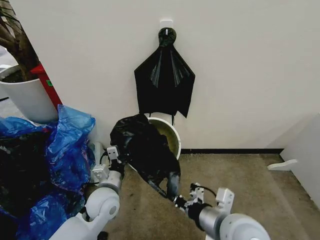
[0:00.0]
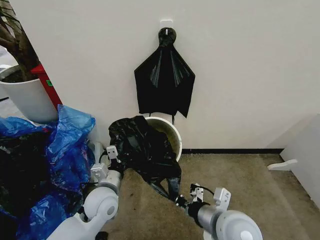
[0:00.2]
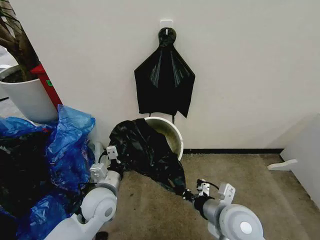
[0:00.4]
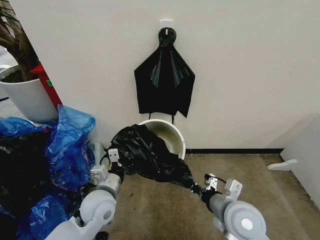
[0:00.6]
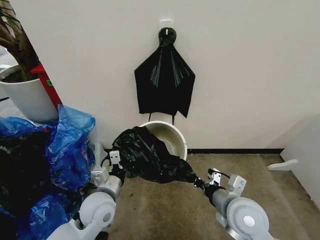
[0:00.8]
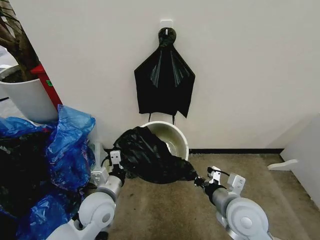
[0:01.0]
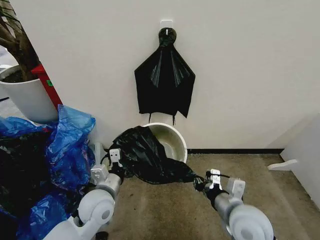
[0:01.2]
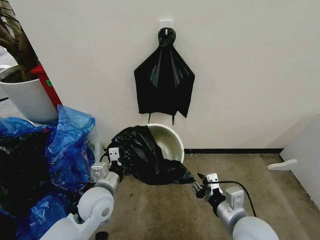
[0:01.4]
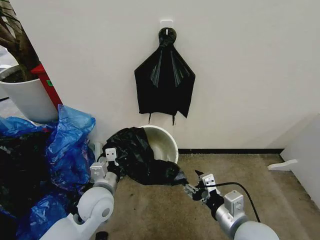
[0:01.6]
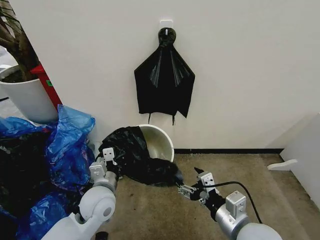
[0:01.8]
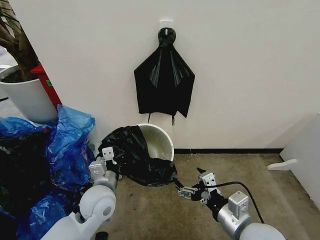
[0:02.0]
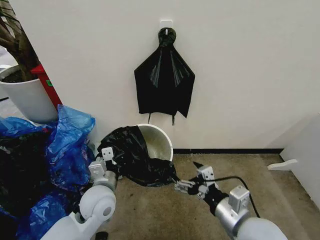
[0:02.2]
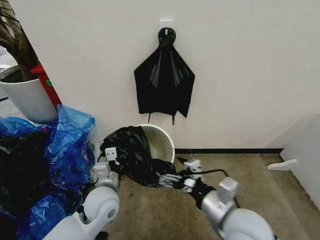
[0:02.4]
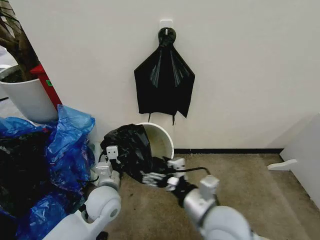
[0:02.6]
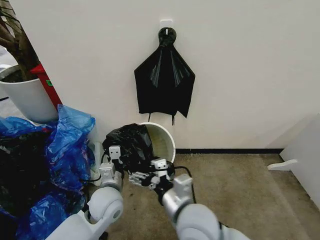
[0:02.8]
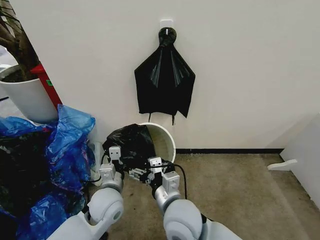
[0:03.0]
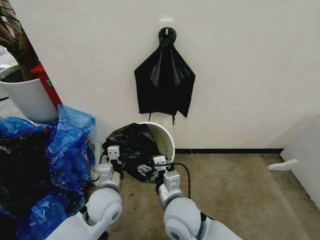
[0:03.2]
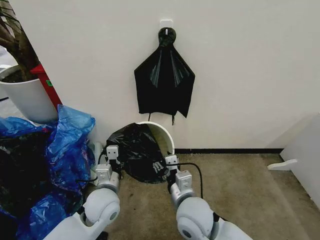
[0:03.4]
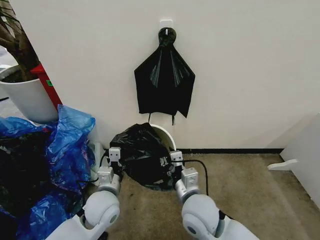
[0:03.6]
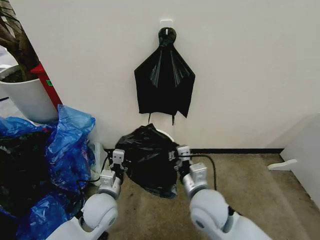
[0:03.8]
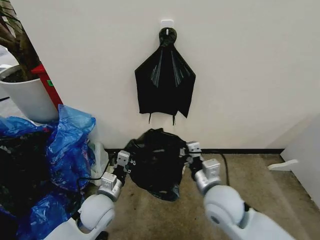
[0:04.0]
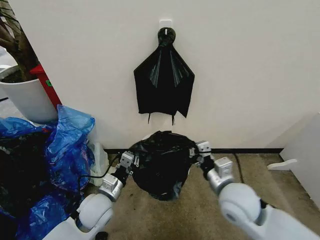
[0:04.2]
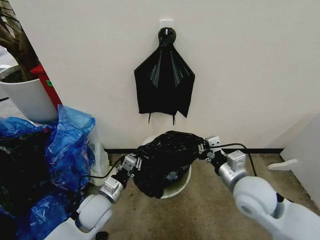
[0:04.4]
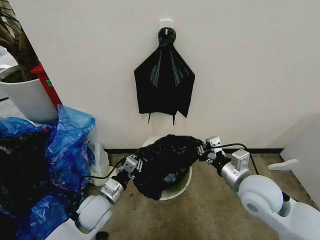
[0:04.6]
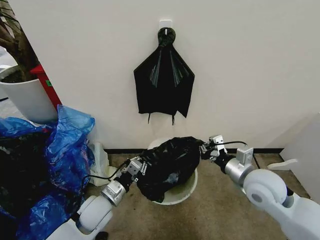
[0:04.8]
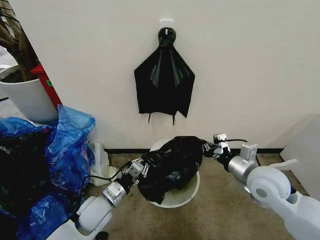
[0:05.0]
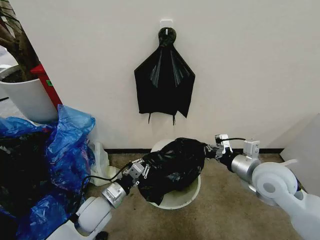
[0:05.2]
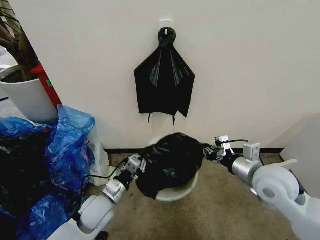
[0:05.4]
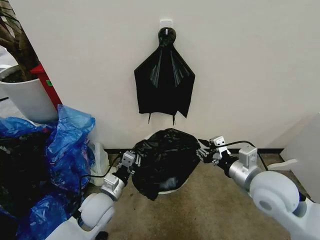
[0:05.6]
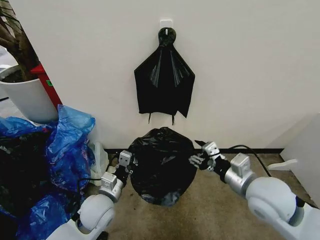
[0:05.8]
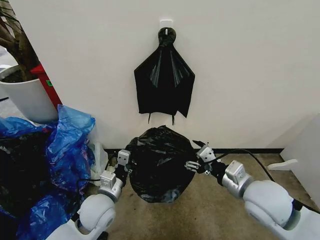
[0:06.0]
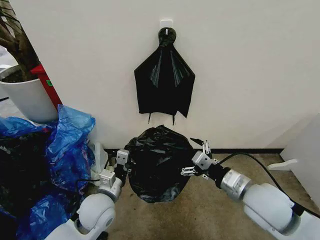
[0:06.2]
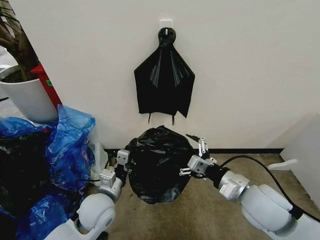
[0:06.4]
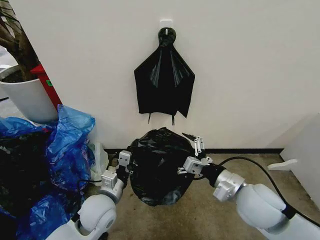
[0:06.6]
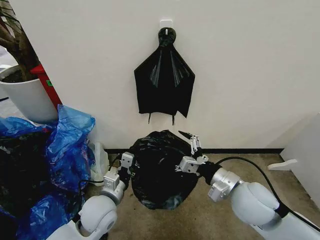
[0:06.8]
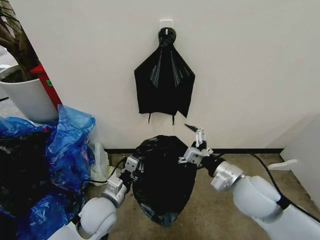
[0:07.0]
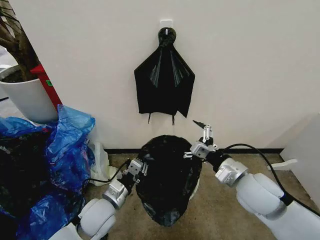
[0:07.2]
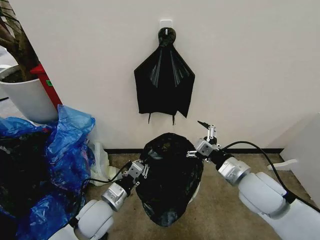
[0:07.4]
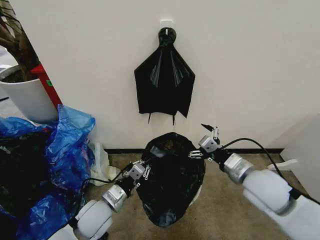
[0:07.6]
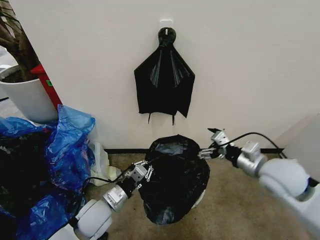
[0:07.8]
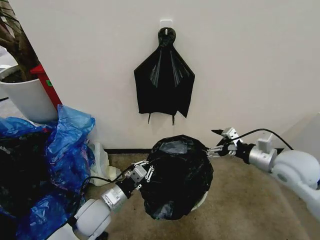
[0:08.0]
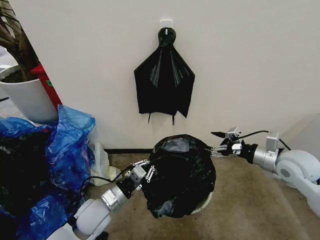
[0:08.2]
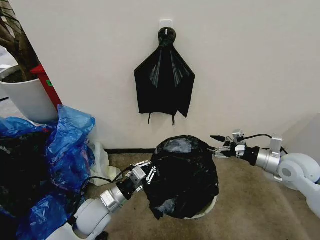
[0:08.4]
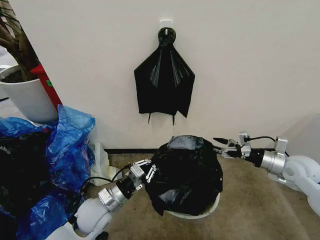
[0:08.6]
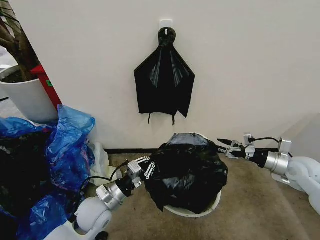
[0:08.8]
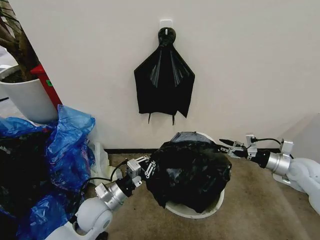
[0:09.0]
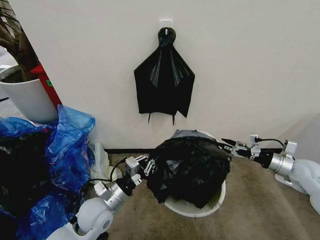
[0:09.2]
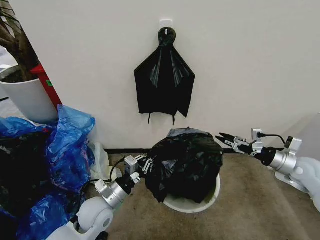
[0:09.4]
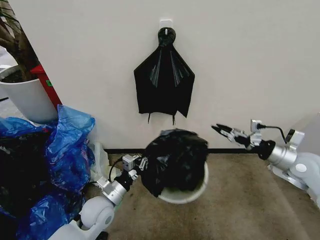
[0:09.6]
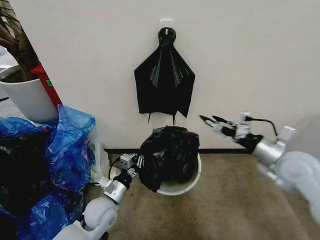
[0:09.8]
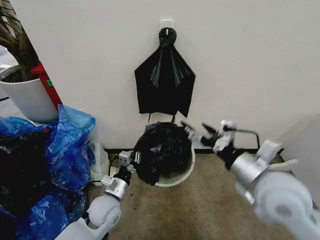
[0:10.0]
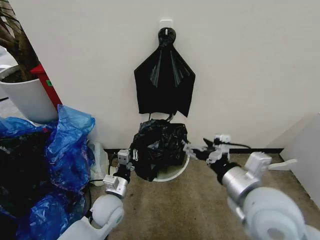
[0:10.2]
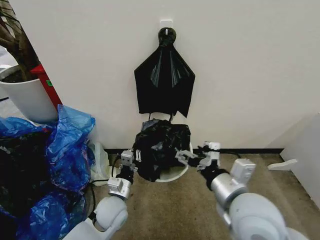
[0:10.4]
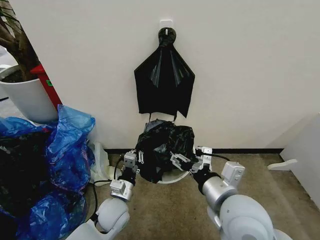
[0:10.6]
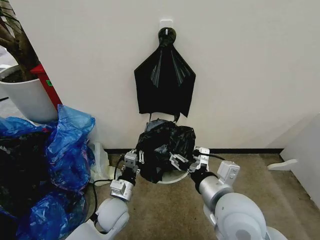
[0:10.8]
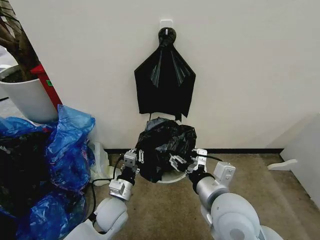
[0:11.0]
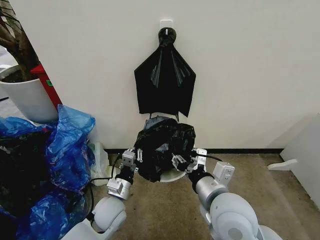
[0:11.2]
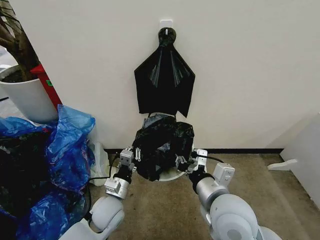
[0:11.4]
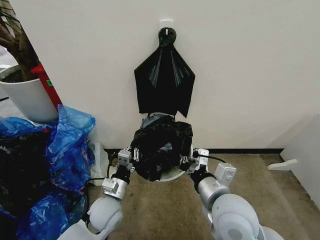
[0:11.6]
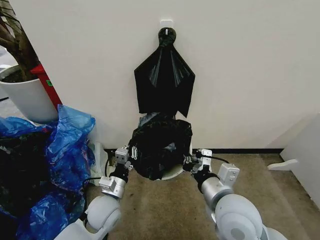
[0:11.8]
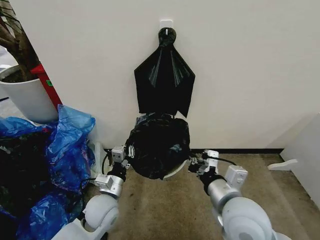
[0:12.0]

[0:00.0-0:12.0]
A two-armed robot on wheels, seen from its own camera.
Task of the whole recording: Place the garbage bag over the trash bin.
0:00.0 to 0:01.6: The right gripper shifts by approximately 5 cm, and opens.
0:01.6 to 0:03.0: The right gripper shifts approximately 15 cm to the left, and opens its fingers.
0:03.0 to 0:04.4: The left gripper changes place by some 5 cm, while the right gripper shifts approximately 20 cm to the right, and closes its fingers.
0:04.4 to 0:06.0: The right gripper opens its fingers.
0:07.6 to 0:09.0: The right gripper shifts approximately 20 cm to the right and forward.
0:09.0 to 0:10.4: The right gripper goes roughly 30 cm to the left and backward. Meanwhile the left gripper ends up about 5 cm from where it was.
0:10.4 to 0:12.0: The right gripper closes its fingers.

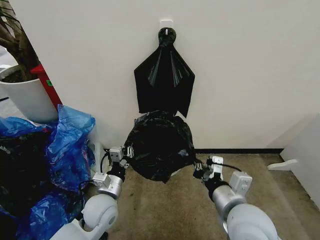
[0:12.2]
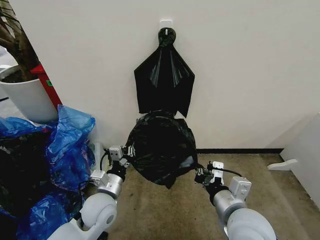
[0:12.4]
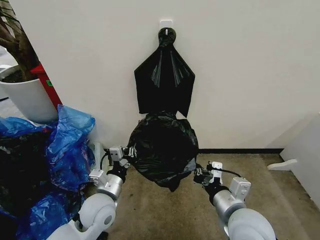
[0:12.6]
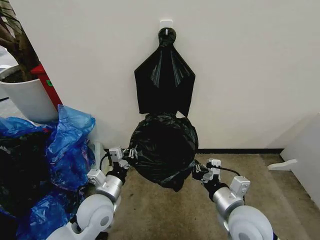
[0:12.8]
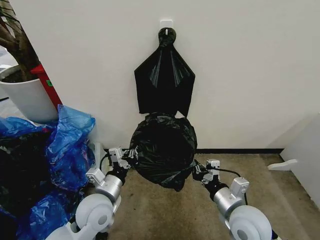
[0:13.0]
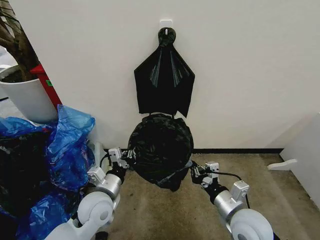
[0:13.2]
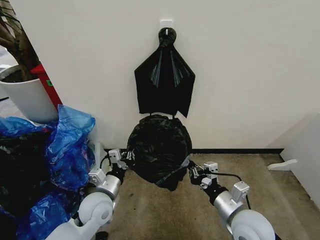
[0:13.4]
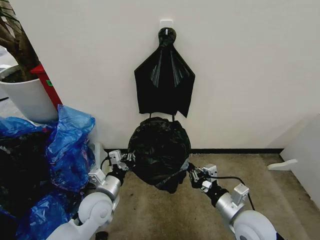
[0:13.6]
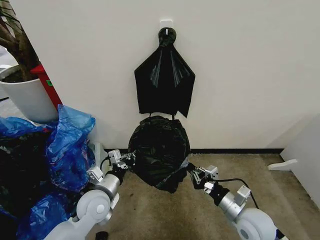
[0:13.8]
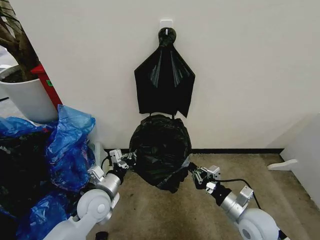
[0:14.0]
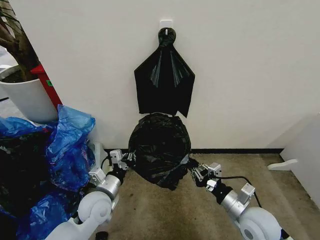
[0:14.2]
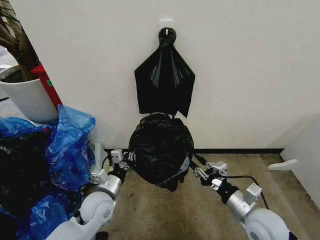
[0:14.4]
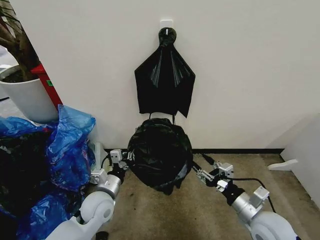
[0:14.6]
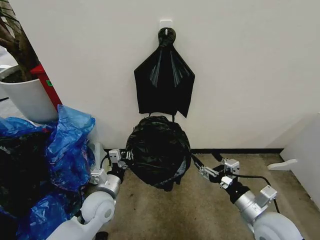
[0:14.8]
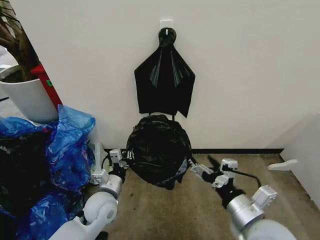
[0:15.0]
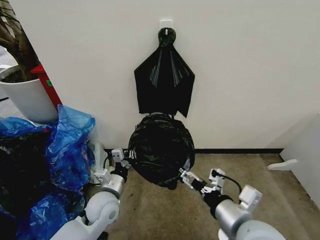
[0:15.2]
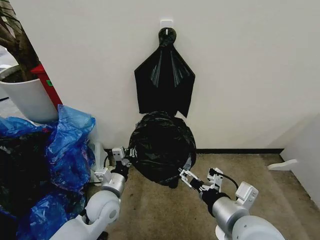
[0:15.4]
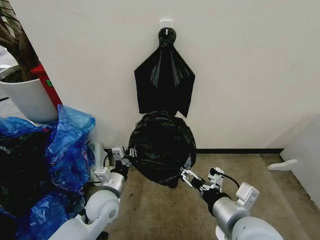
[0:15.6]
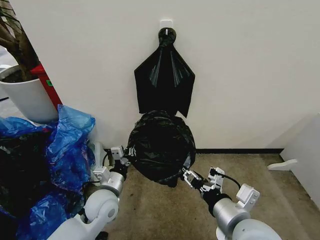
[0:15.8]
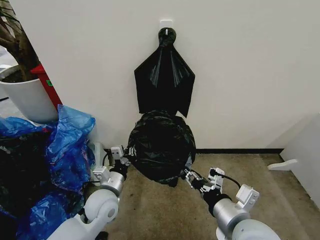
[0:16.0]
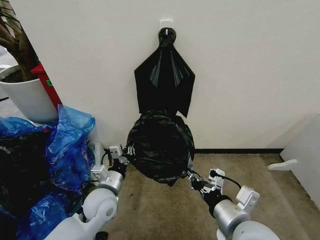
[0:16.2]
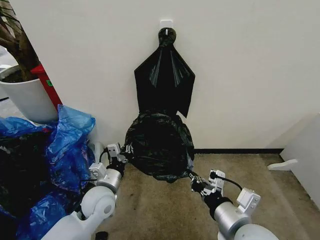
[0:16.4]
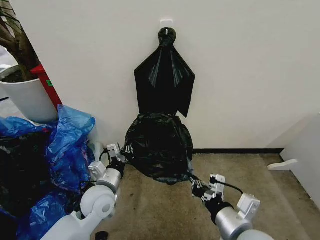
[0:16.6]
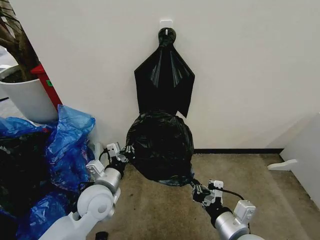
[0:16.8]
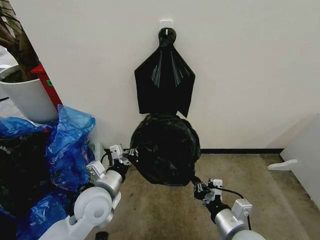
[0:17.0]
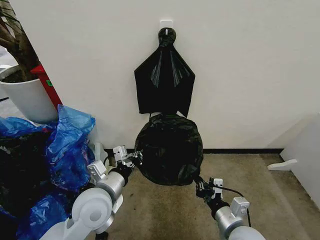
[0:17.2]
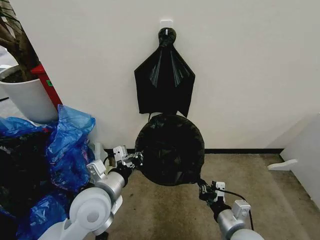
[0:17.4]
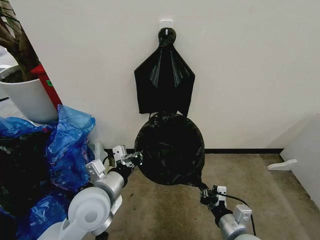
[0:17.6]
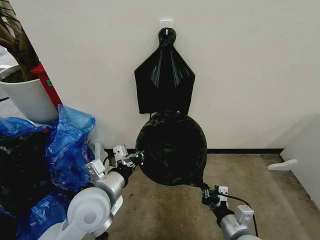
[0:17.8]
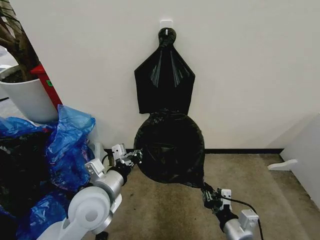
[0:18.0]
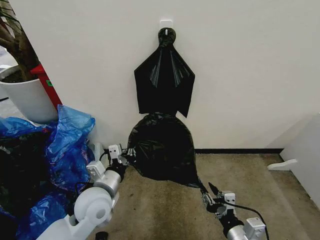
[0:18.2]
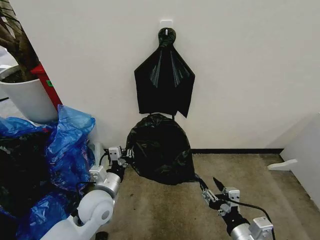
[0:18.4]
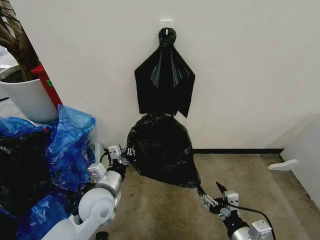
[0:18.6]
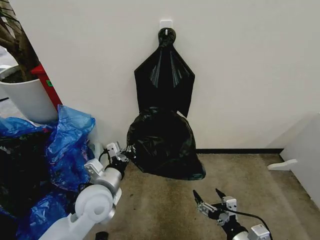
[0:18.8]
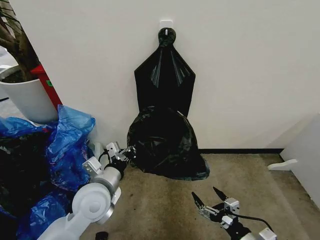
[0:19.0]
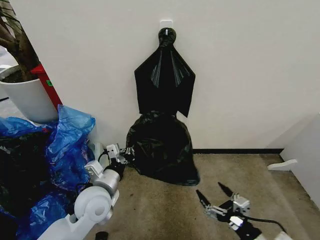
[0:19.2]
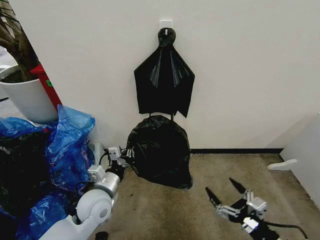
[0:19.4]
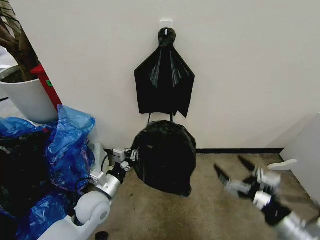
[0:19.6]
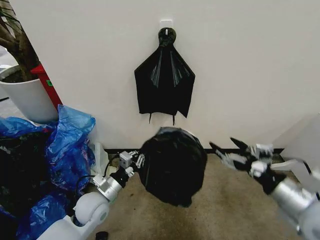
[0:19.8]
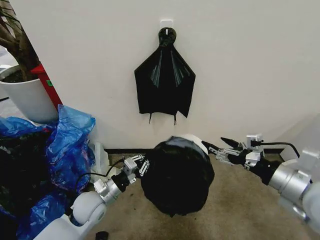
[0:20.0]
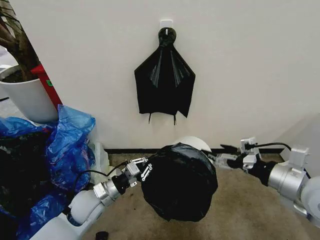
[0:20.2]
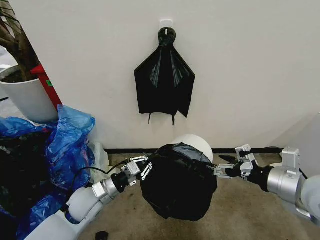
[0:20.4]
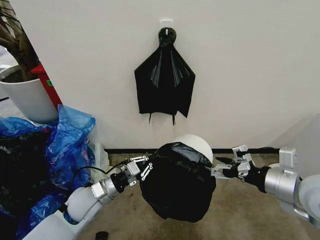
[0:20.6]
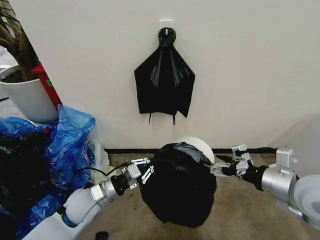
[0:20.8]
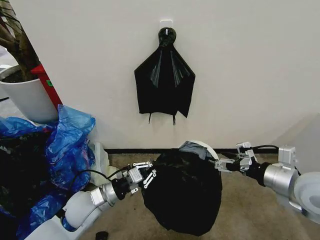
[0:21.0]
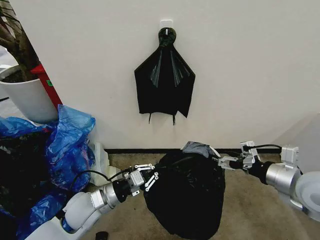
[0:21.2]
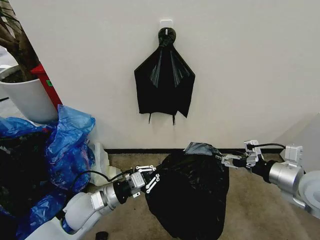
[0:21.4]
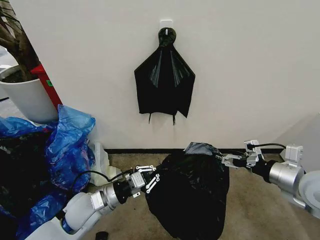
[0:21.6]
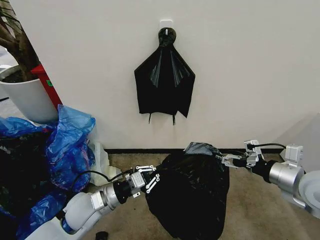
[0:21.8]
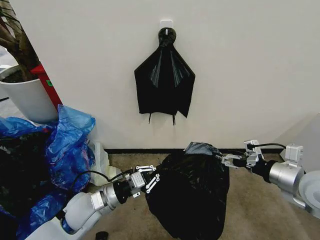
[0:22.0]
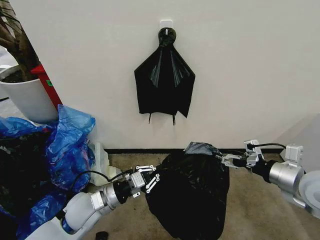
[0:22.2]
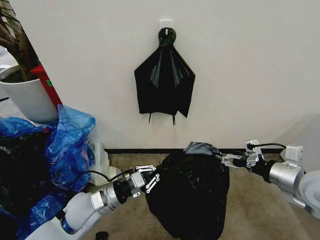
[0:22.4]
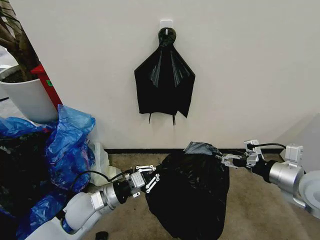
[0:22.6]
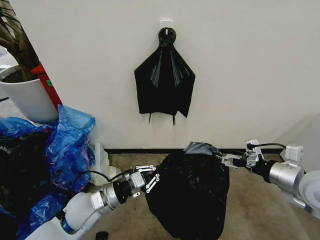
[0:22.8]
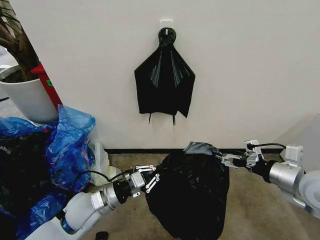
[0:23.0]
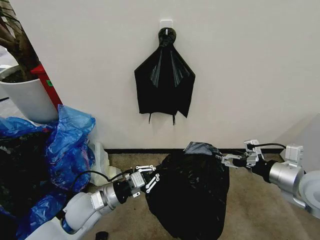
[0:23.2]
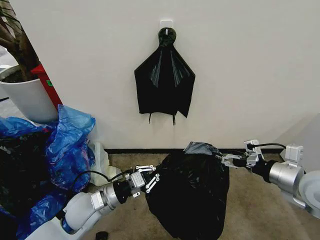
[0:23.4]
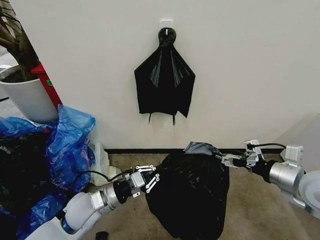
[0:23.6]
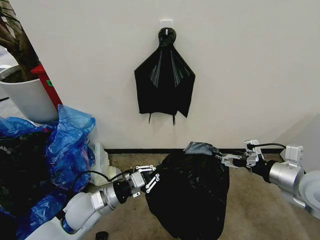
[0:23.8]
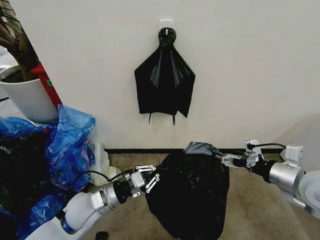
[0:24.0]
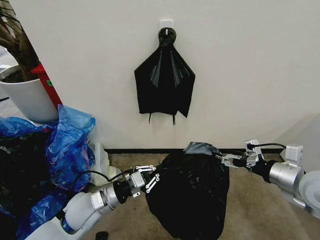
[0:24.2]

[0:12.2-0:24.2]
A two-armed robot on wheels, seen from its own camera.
Task of the whole recording: Place the garbage bag over the trash bin.
0:12.2 to 0:13.8: The right gripper heads downward and to the right, covering some 15 cm.
0:13.8 to 0:15.2: The right gripper heads upward, to the left and backward, covering about 15 cm, and opens up.
0:15.2 to 0:16.6: The right gripper closes.
0:16.6 to 0:18.2: The left gripper travels upward by approximately 10 cm. Meanwhile the right gripper moves downward, roughly 10 cm.
0:18.2 to 0:19.8: The right gripper shifts approximately 5 cm to the right, and opens its fingers.
0:19.8 to 0:21.2: The left gripper moves about 5 cm. The right gripper shifts about 25 cm upward and forward.
0:21.2 to 0:22.6: The right gripper shifts by roughly 5 cm.
0:22.6 to 0:24.2: Neither gripper changes place.
